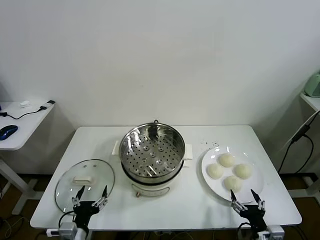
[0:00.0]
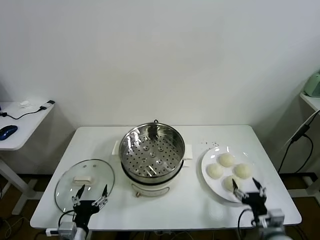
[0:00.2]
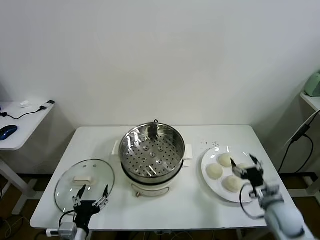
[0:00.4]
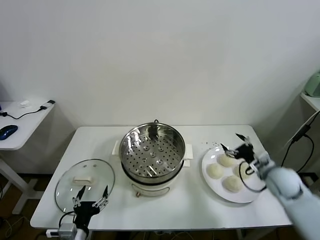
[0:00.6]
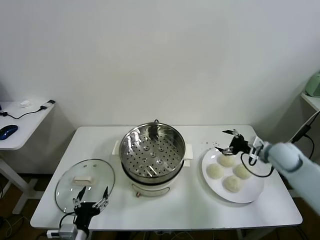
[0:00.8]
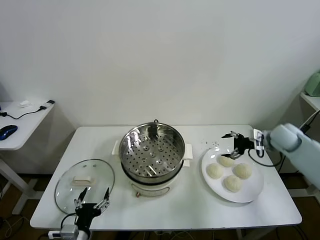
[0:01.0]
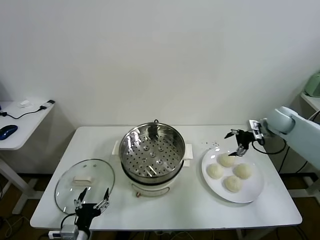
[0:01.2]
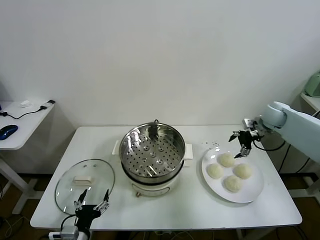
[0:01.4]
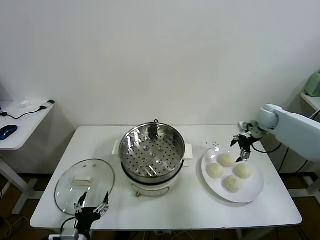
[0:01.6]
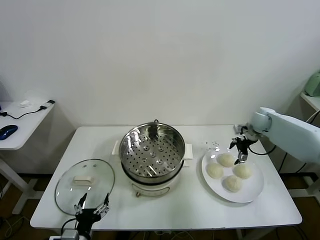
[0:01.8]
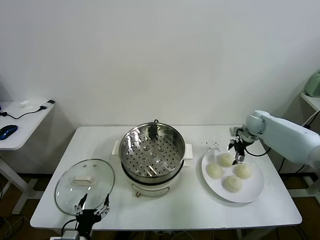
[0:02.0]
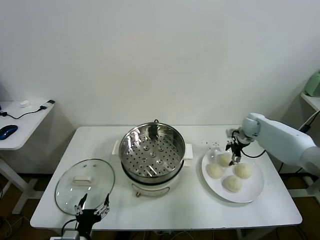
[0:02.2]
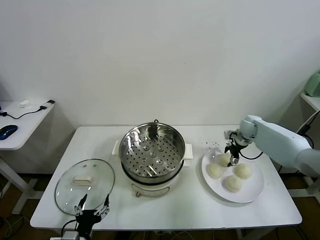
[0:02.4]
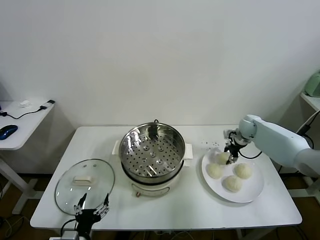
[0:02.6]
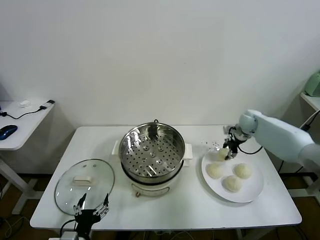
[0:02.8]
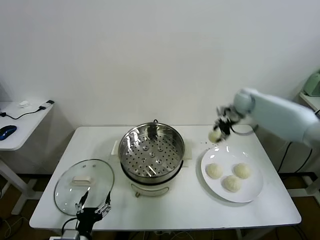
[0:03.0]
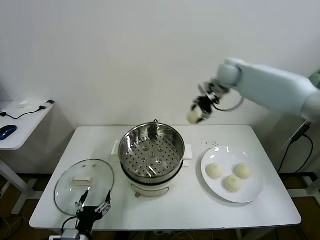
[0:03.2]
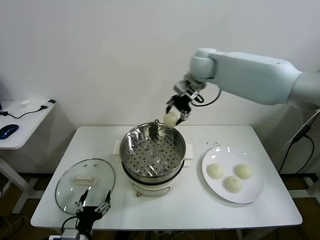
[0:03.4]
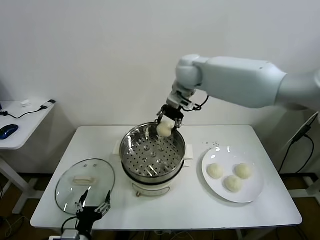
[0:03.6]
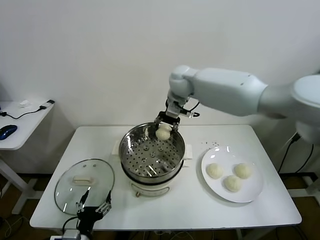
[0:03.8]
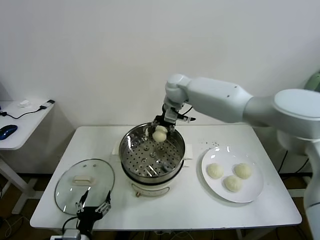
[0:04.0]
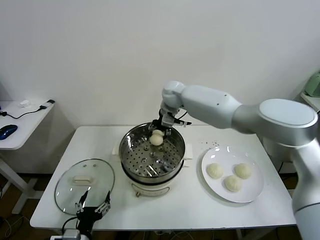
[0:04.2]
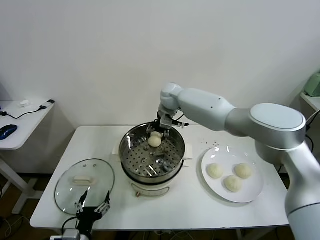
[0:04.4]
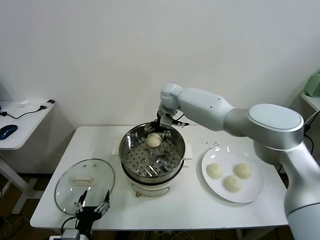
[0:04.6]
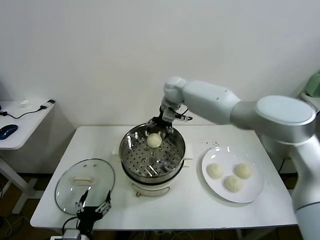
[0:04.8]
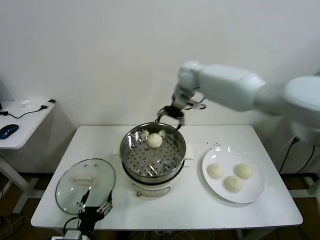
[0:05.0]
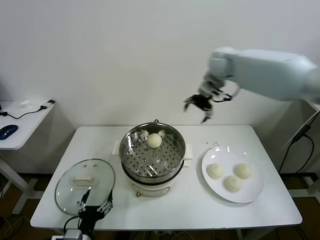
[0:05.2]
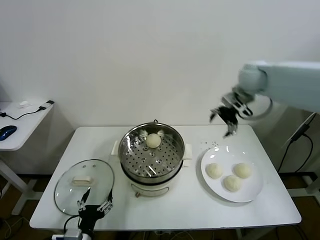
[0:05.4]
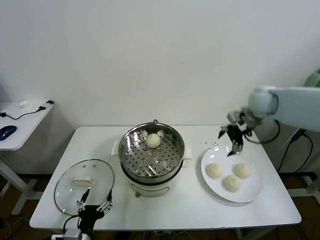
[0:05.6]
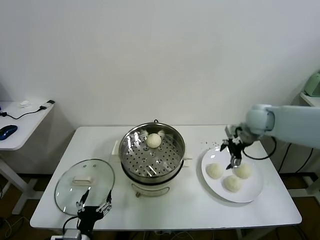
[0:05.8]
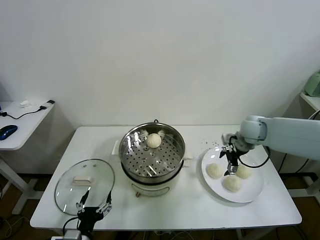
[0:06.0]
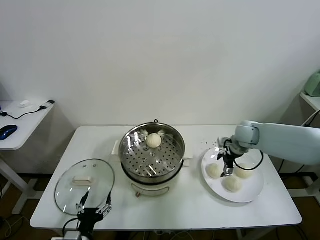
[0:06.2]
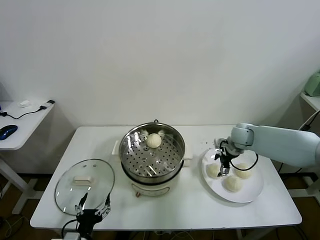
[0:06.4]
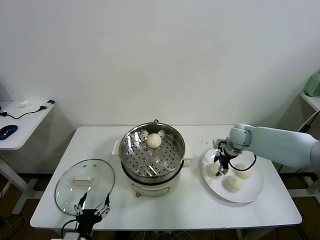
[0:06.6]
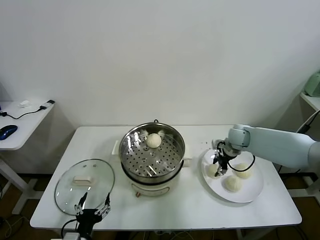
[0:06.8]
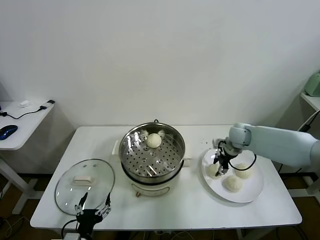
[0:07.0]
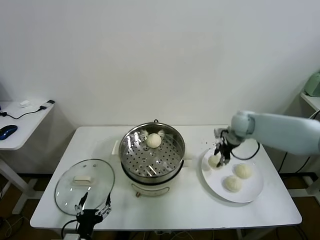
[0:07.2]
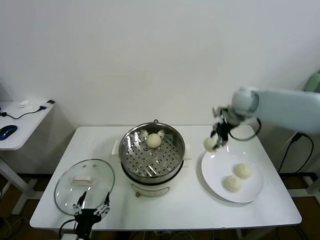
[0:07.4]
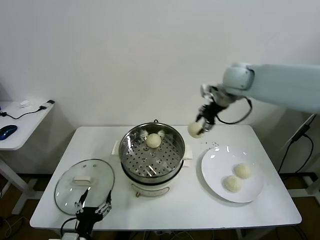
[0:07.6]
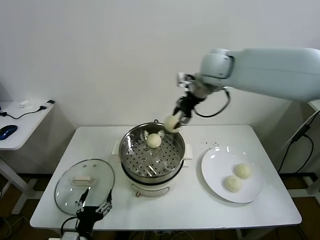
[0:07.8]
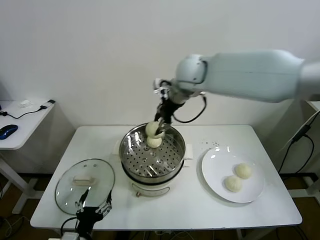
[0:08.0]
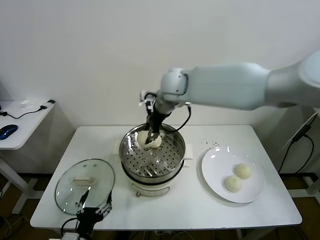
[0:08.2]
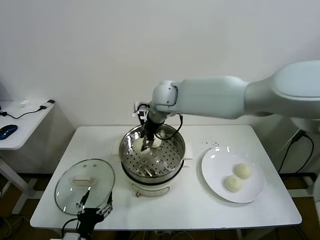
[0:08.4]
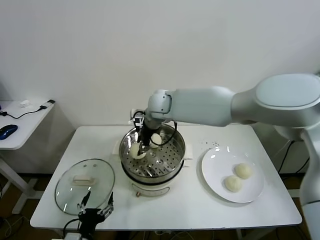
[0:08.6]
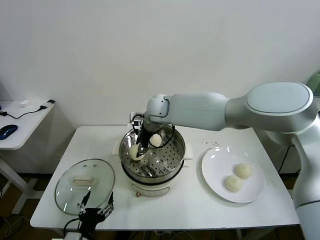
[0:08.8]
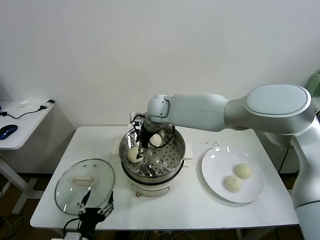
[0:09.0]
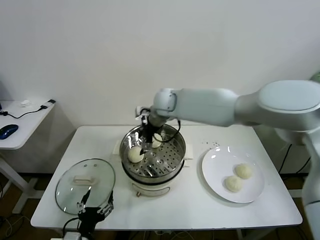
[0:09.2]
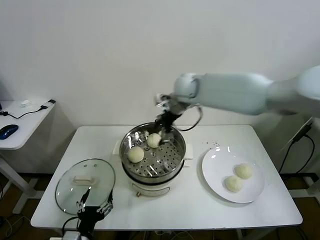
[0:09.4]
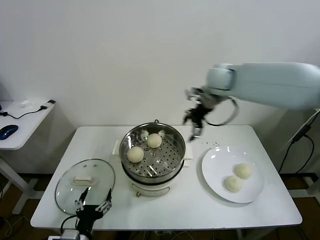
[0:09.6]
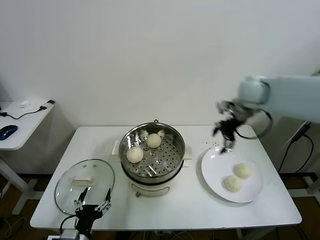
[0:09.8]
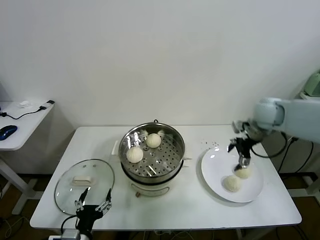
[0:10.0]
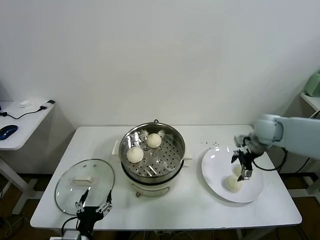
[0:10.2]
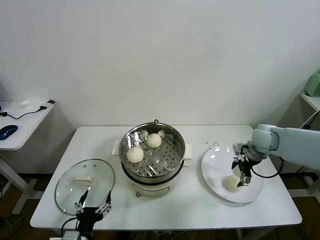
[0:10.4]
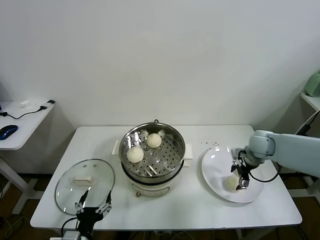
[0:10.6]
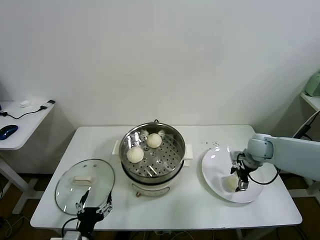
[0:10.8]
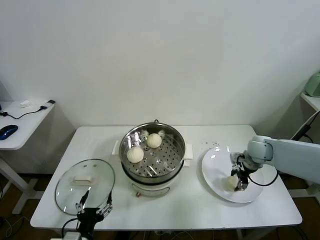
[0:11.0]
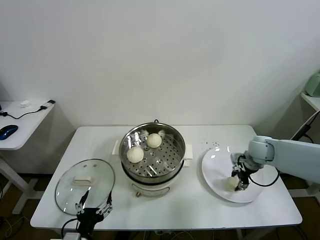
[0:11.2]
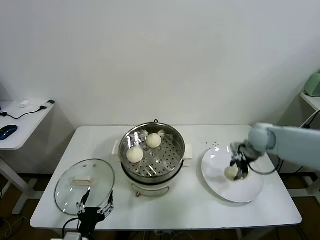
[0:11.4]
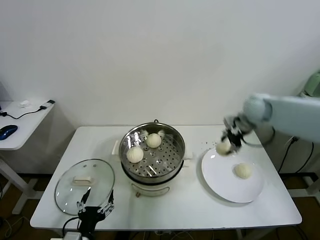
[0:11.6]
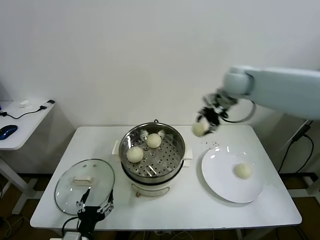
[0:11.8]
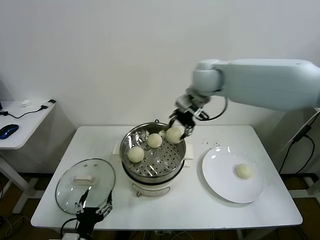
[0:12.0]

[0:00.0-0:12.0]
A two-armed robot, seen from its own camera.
Task of the whole recording: take steamed baozi put them in steamer.
Step, 0:00.0 to 0:02.4: Grasp the baozi in the plate with right gripper.
Step, 0:02.8 to 0:04.6: Place the baozi on the steamer with right gripper.
Step, 0:04.8 to 0:06.6: Grasp the baozi in the plate with right gripper.
Step, 0:06.8 to 0:09.0: Place the baozi on the steamer with right gripper.
Step, 0:09.2 to 0:11.0: Grasp the baozi in the plate with right gripper.
0:01.6 to 0:03.0: The right gripper travels upward and to the left by some 20 cm, and closes its fingers.
0:03.0 to 0:04.4: The right gripper goes roughly 25 cm to the left.
0:04.4 to 0:06.0: The right gripper heads to the right and backward, covering approximately 30 cm, and opens its fingers.
0:06.0 to 0:07.6: The right gripper shifts approximately 25 cm upward and to the left, and closes.
0:07.6 to 0:09.0: The right gripper goes approximately 25 cm to the left and downward, and opens up.
0:09.0 to 0:10.4: The right gripper goes some 35 cm to the right.
0:10.4 to 0:12.0: The right gripper goes roughly 35 cm to the left and upward, and closes.

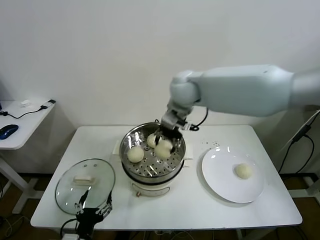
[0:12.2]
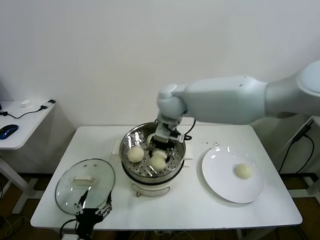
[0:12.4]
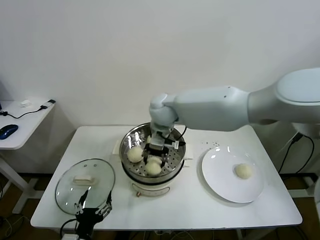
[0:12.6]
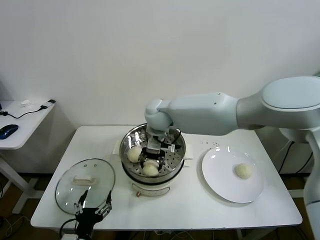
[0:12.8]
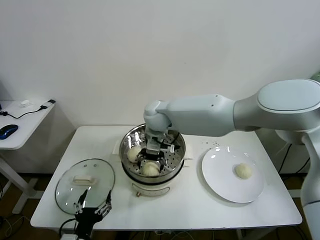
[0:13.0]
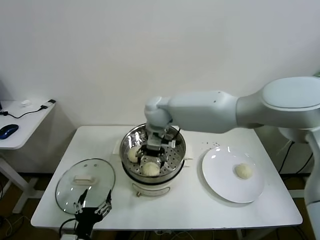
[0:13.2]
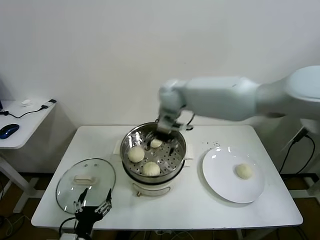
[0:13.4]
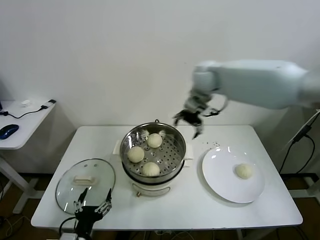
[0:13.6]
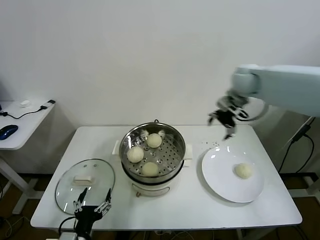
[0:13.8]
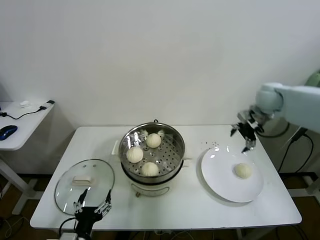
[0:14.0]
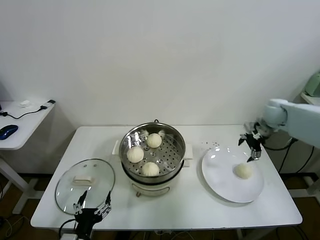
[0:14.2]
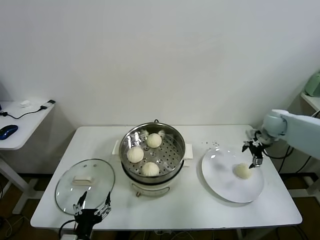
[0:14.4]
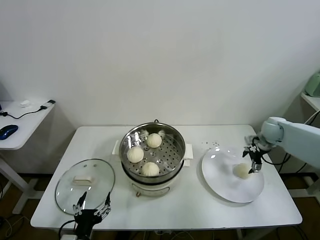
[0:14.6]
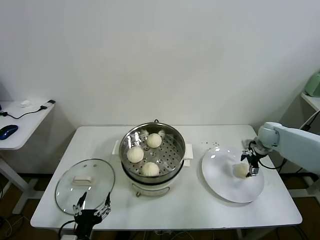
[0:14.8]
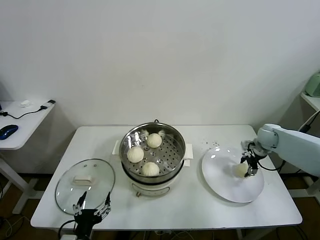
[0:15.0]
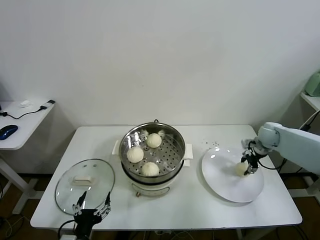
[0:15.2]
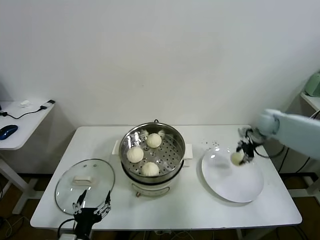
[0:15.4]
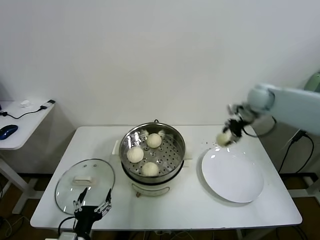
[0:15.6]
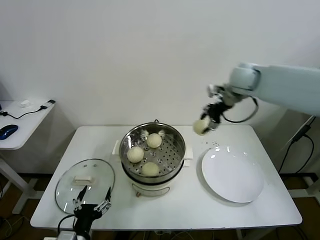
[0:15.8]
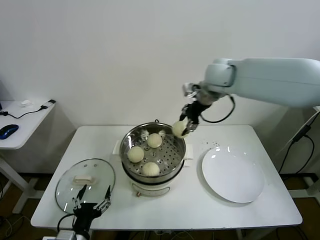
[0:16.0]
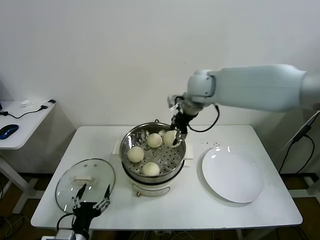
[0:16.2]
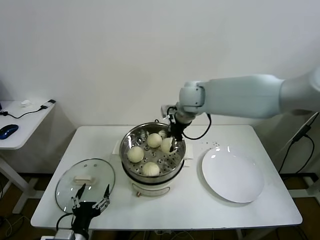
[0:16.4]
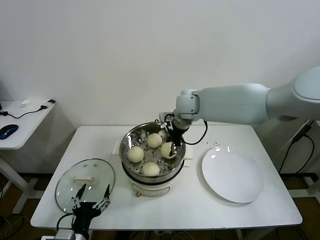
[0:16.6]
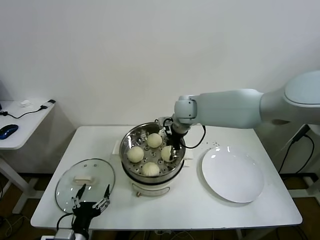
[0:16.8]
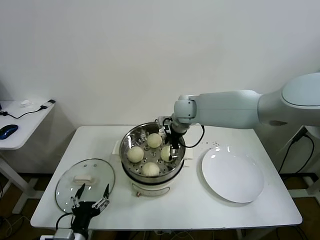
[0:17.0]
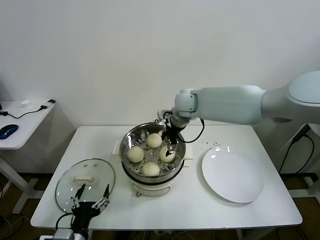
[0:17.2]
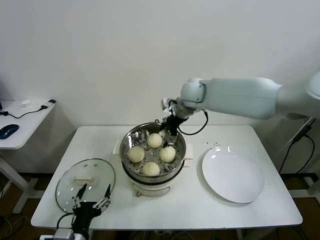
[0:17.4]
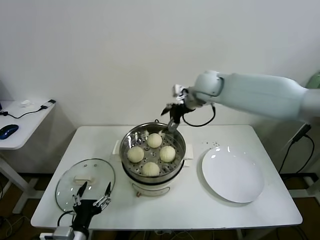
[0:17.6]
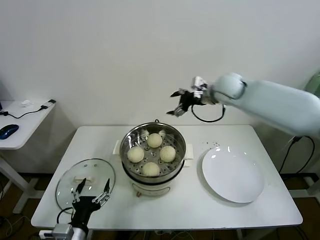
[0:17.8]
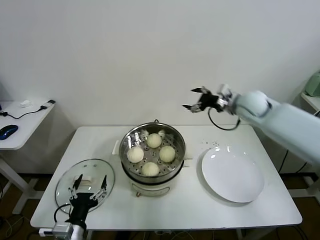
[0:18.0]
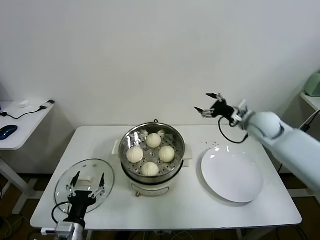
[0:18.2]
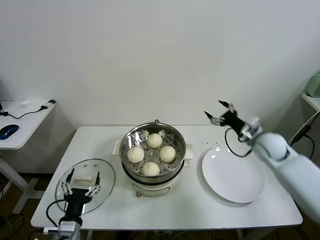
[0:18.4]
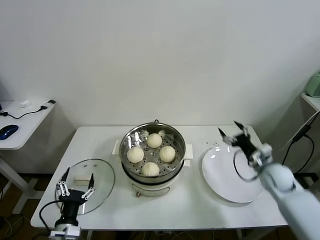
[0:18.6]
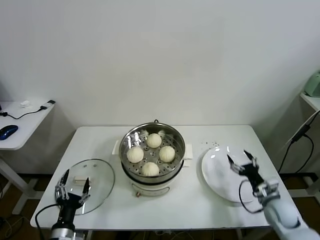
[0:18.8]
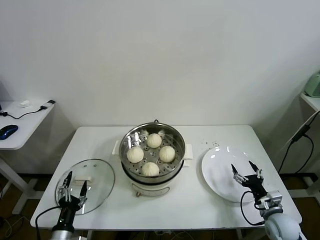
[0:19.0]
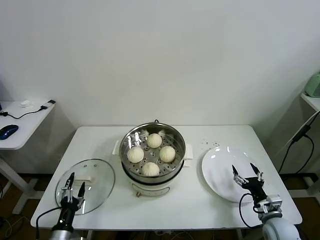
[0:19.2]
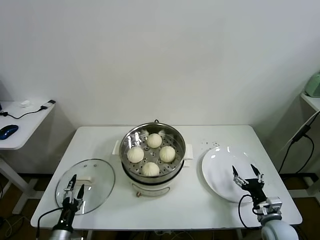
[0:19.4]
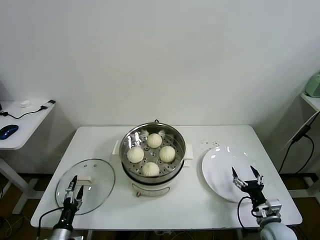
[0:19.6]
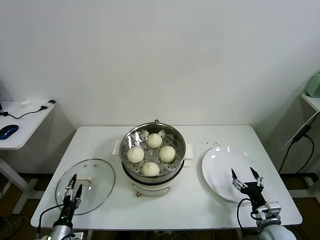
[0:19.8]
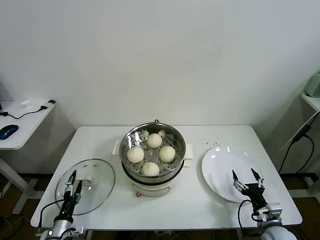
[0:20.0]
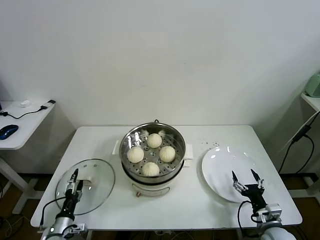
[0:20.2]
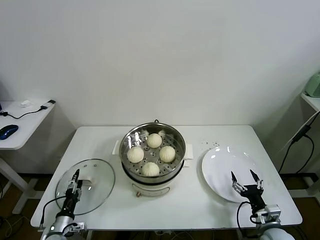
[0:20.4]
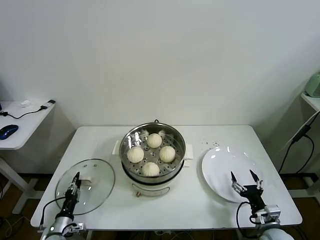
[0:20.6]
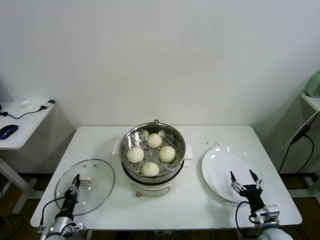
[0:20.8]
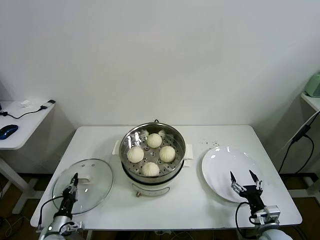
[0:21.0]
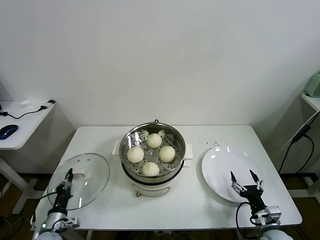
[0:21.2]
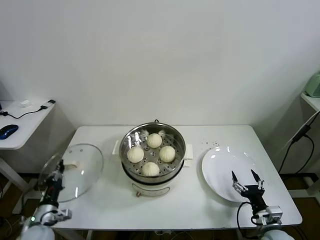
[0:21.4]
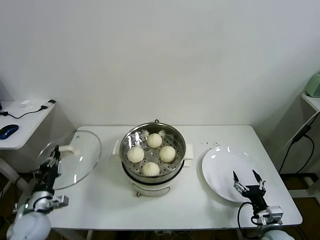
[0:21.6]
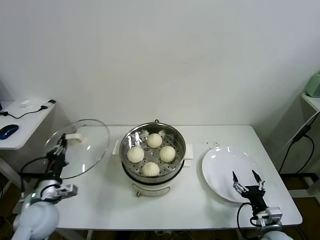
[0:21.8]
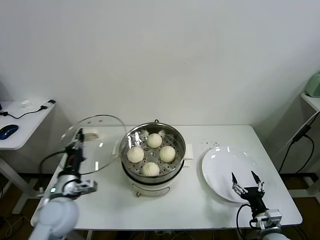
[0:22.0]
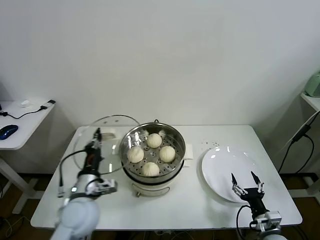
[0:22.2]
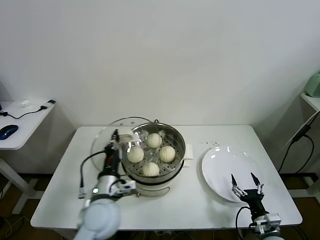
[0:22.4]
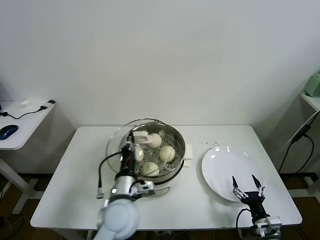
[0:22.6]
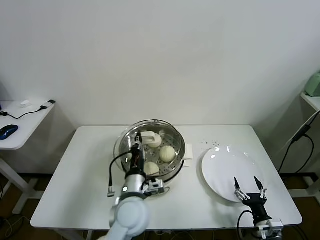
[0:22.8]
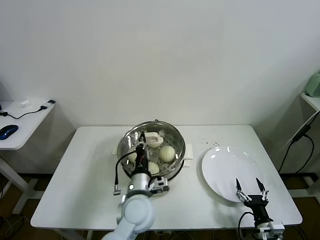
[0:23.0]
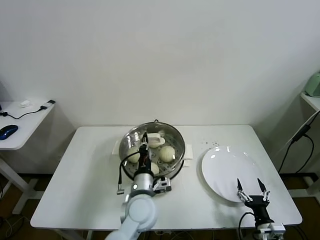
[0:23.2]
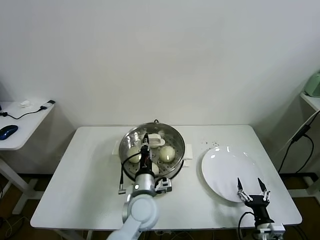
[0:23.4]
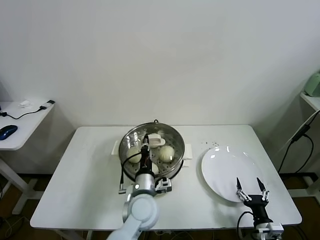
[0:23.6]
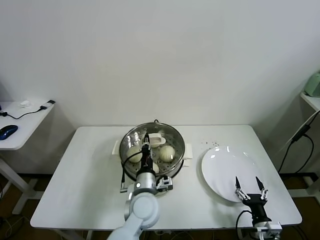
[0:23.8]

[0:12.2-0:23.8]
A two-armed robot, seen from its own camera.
Task of the whole recording: take steamed baozi put them in steamer.
Step, 0:13.4 to 0:15.0: Grasp the baozi in the plate with right gripper.
Step, 0:15.2 to 0:16.8: Place the baozi on the steamer with right gripper.
Step, 0:17.0 to 0:20.8: Grasp the pot lid with left gripper.
0:12.2 to 0:13.6: The right gripper travels to the right and forward by approximately 10 cm, and opens.
0:13.6 to 0:15.0: The right gripper shifts about 35 cm to the right and downward, and closes.
0:15.0 to 0:16.6: The right gripper goes roughly 35 cm to the left and upward, and closes.
0:16.6 to 0:18.0: The right gripper shifts approximately 20 cm to the right, and opens.
0:18.0 to 0:19.4: The right gripper goes roughly 40 cm downward and backward; the left gripper goes about 15 cm downward and to the left.
0:19.4 to 0:21.0: The left gripper shifts roughly 5 cm forward, and closes up.
0:21.0 to 0:22.4: The left gripper heads upward and to the right, covering some 30 cm.
0:22.4 to 0:23.8: The left gripper moves to the right and downward, approximately 15 cm.
